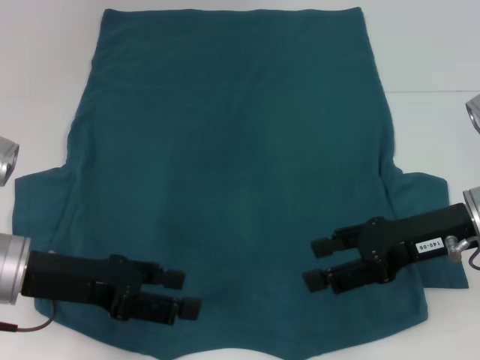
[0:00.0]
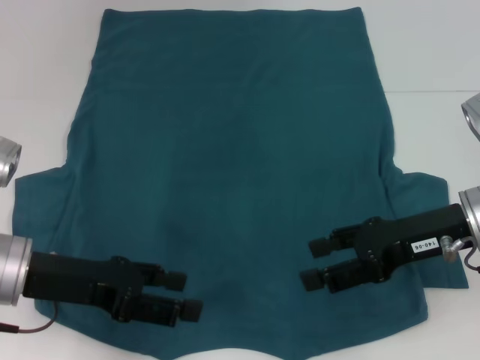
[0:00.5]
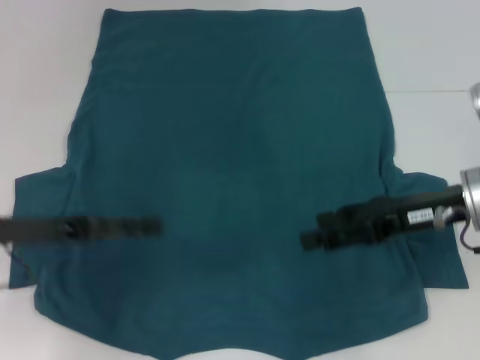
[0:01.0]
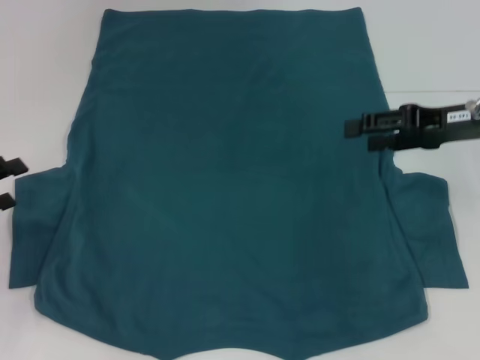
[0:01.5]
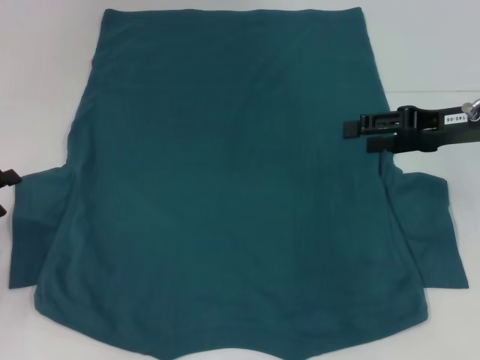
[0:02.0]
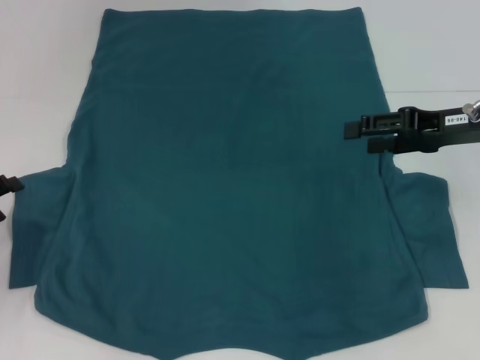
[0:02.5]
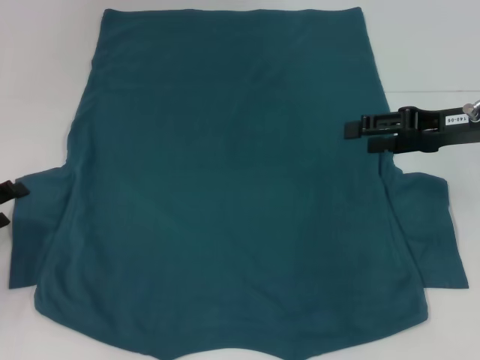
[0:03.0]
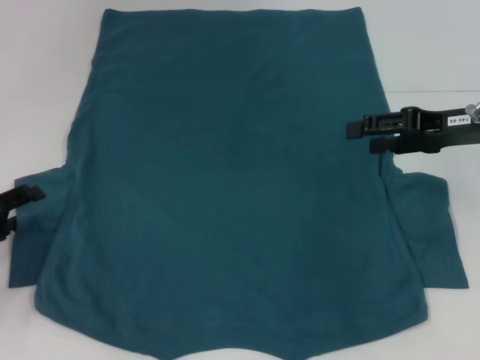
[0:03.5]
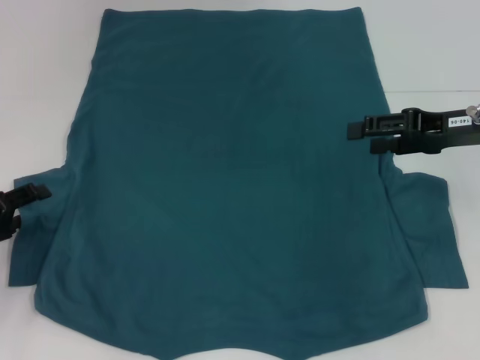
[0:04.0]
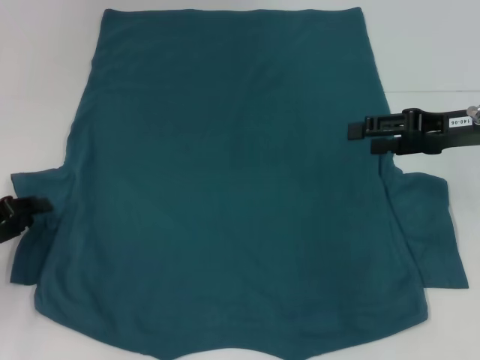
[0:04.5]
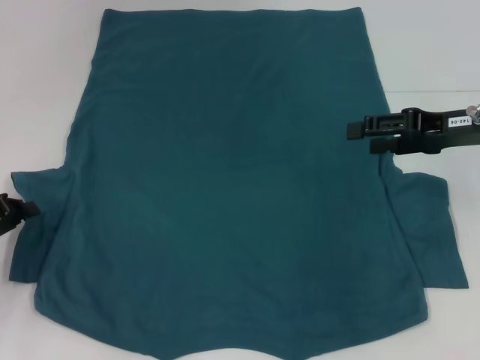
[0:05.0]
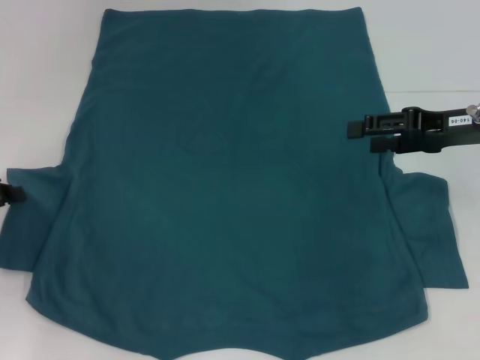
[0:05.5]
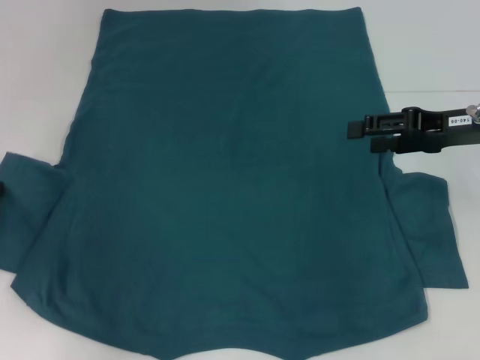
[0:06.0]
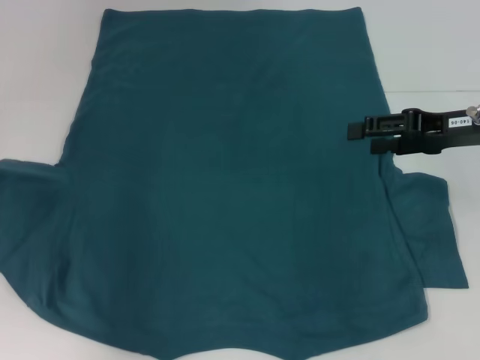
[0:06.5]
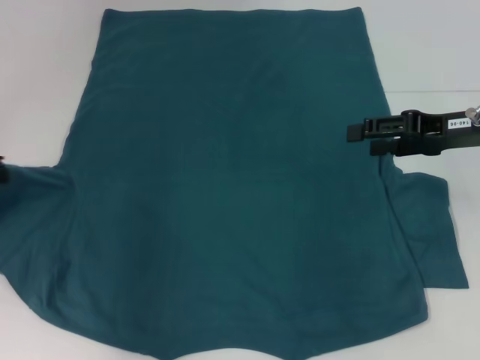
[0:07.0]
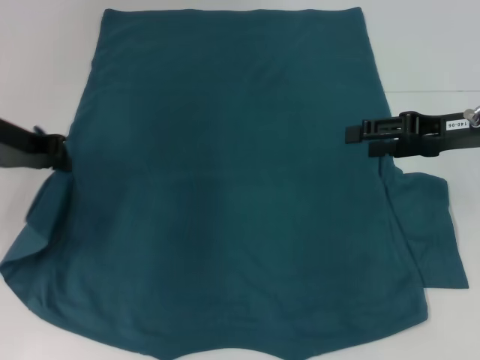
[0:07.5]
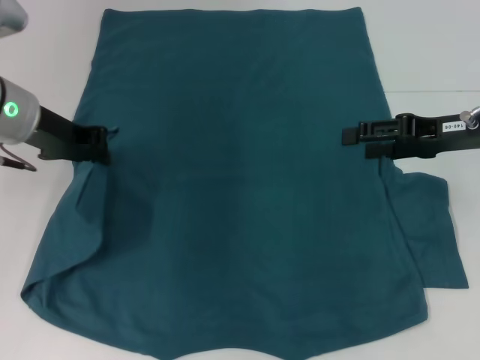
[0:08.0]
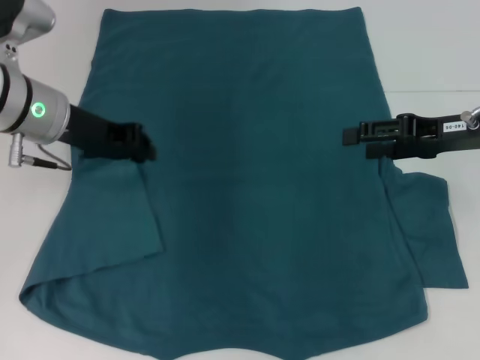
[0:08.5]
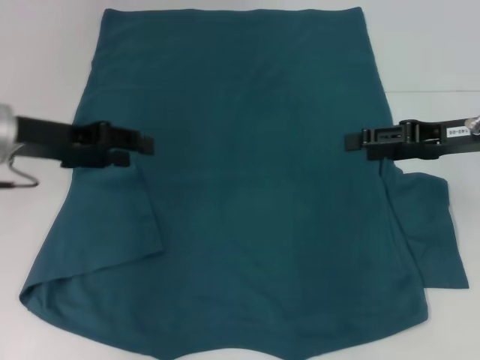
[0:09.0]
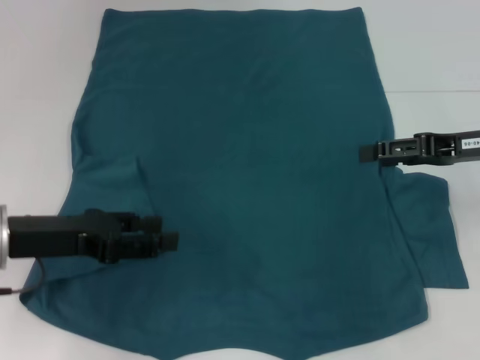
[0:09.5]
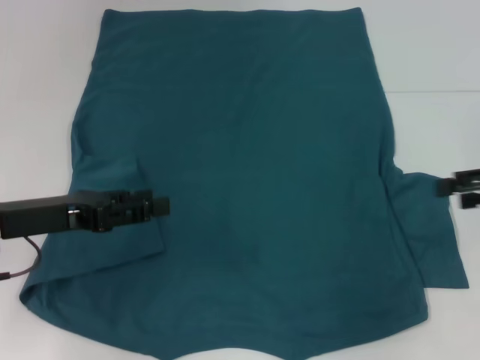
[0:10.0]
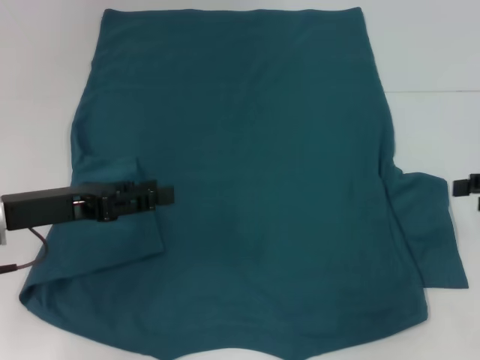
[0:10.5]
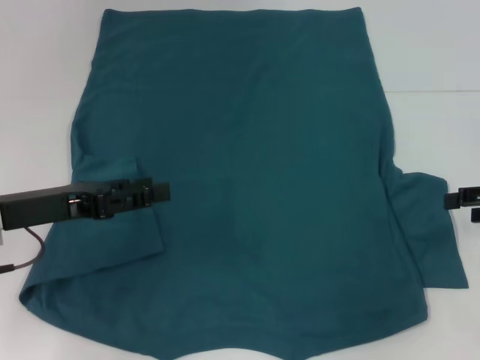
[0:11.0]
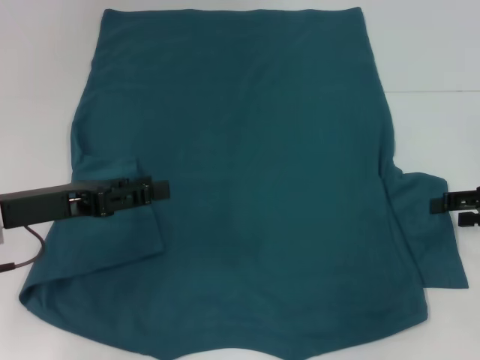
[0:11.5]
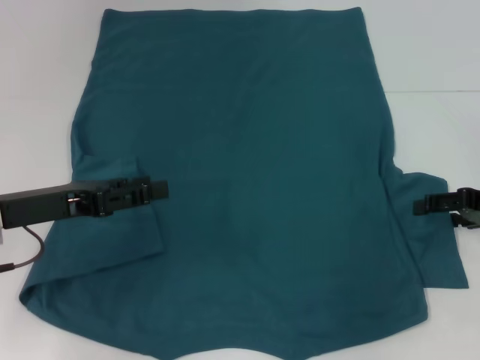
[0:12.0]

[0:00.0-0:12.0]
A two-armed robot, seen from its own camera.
Step, 0:00.0 to 0:08.5: Fold the bottom left sleeve with your left hand.
0:00.0 to 0:02.0: The left gripper is displaced to the left by approximately 15 cm. Meanwhile the right gripper goes some 10 cm forward.
0:02.0 to 0:04.0: The grippers move only a little.
0:04.0 to 0:06.0: The left gripper is displaced upward by about 5 cm, and closes.
0:06.0 to 0:08.0: The left gripper shifts approximately 15 cm to the right, forward and upward.
0:08.0 to 0:10.0: The left gripper heads backward and downward, covering some 10 cm, and opens its fingers, while the right gripper heads to the right, covering some 10 cm.
0:10.0 to 0:12.0: The right gripper shifts about 5 cm downward.

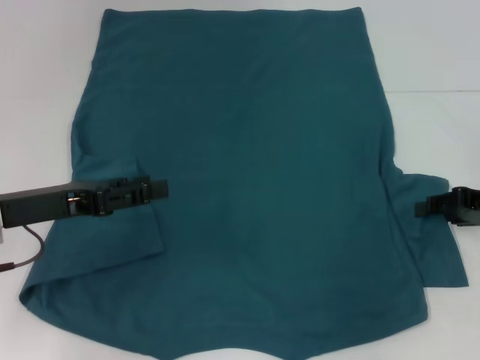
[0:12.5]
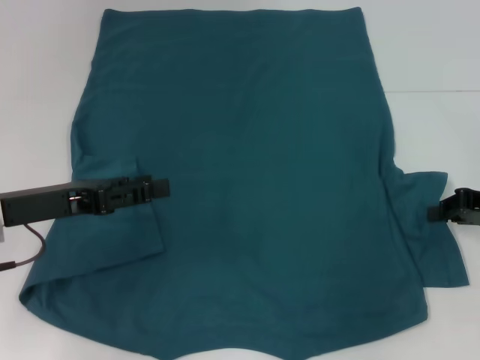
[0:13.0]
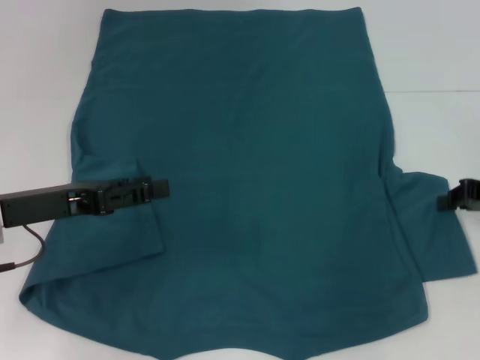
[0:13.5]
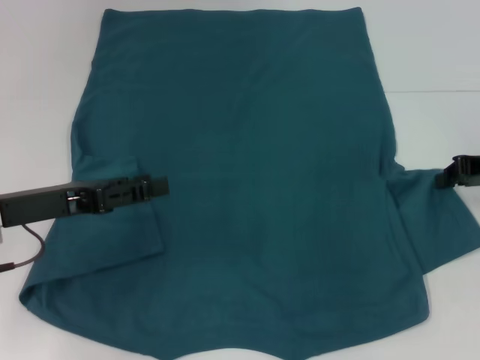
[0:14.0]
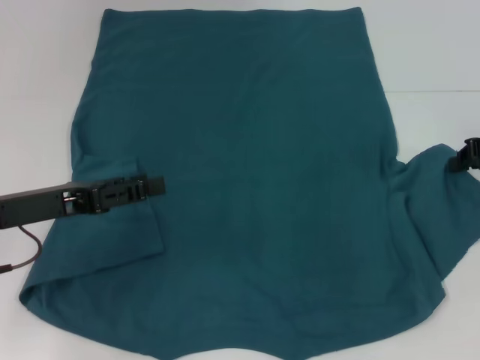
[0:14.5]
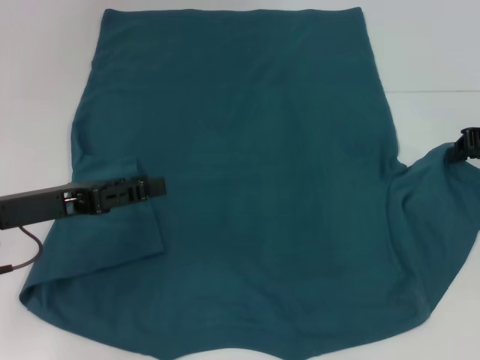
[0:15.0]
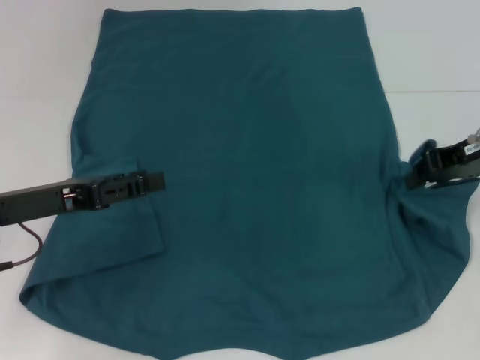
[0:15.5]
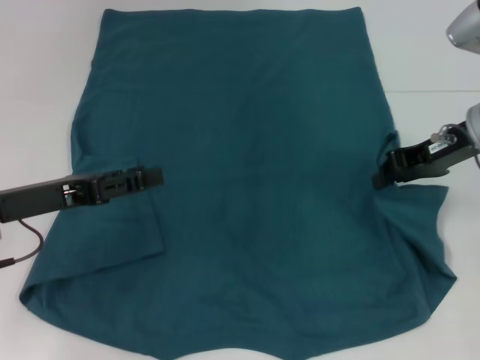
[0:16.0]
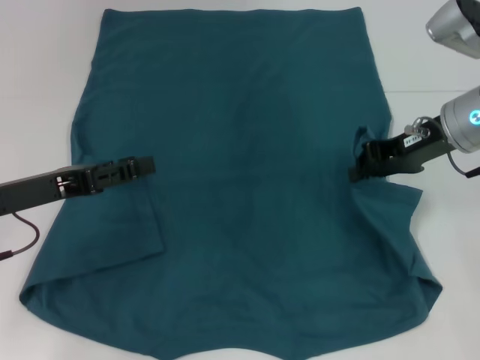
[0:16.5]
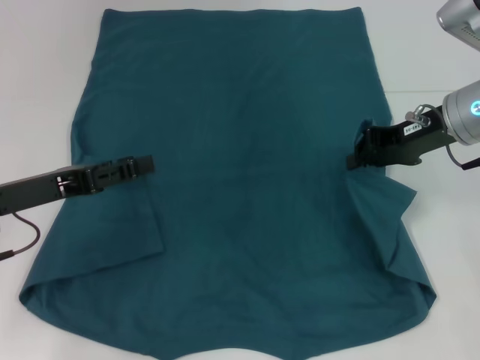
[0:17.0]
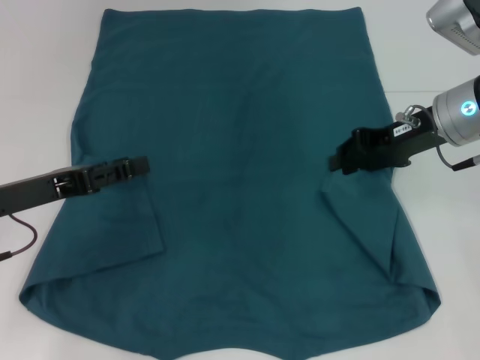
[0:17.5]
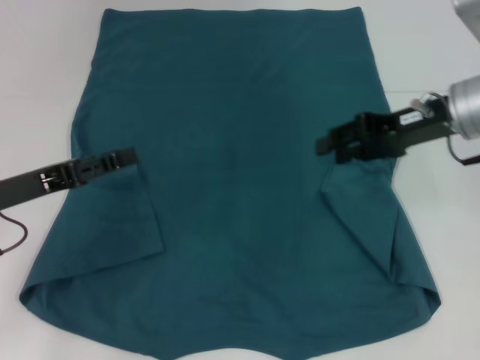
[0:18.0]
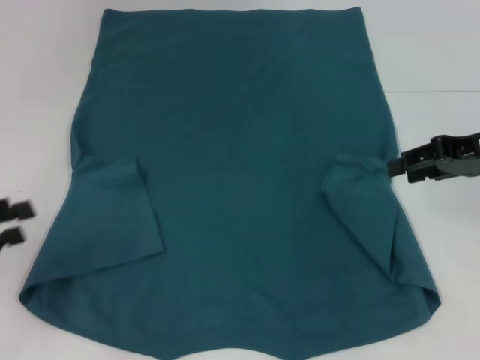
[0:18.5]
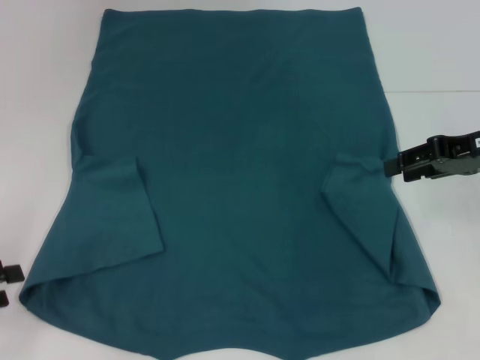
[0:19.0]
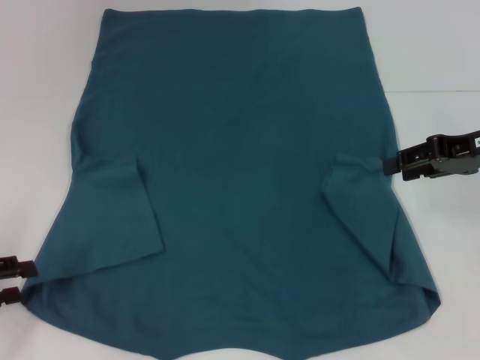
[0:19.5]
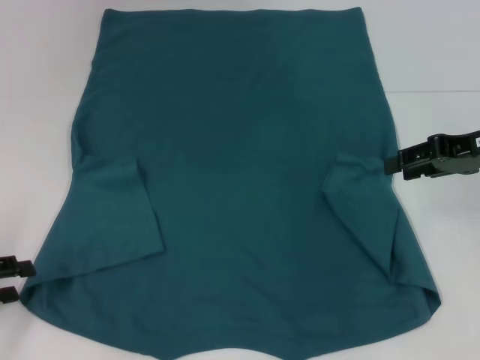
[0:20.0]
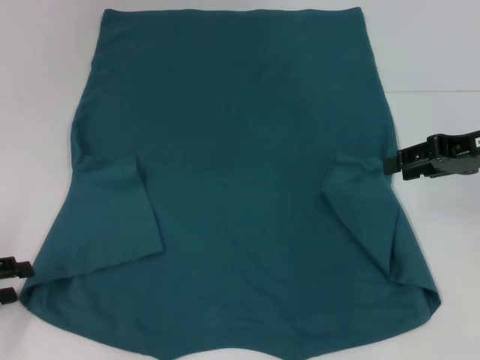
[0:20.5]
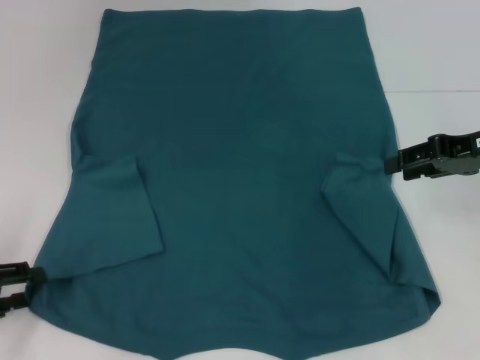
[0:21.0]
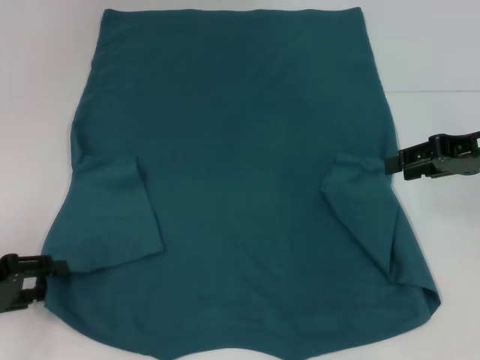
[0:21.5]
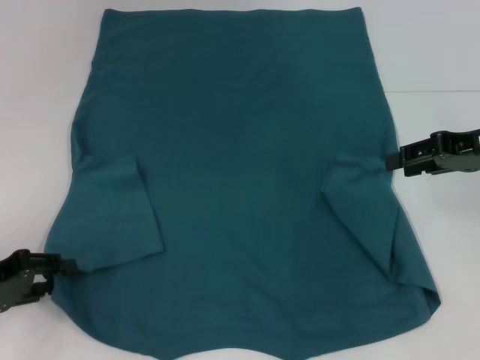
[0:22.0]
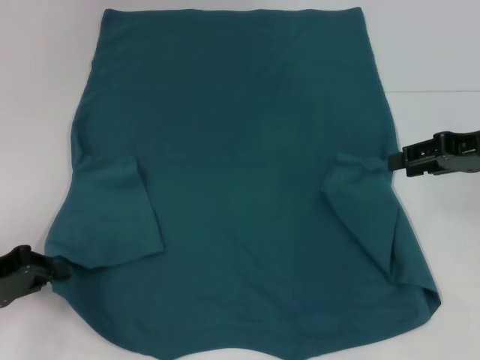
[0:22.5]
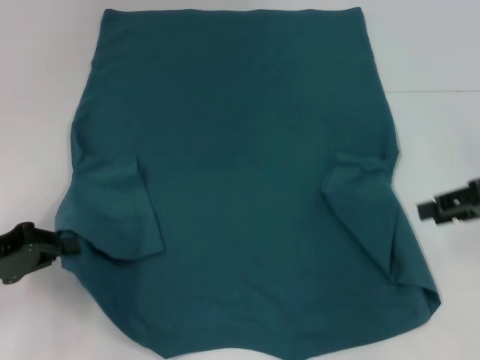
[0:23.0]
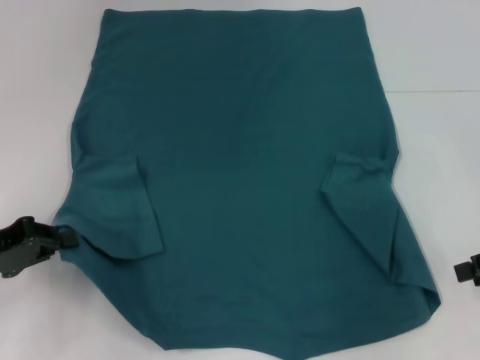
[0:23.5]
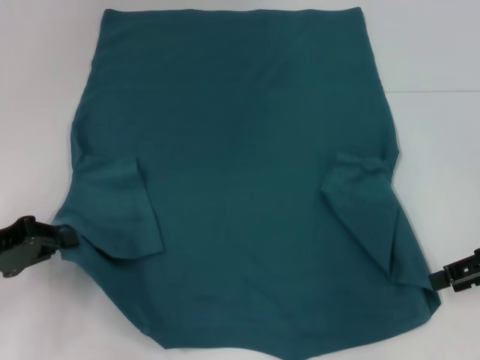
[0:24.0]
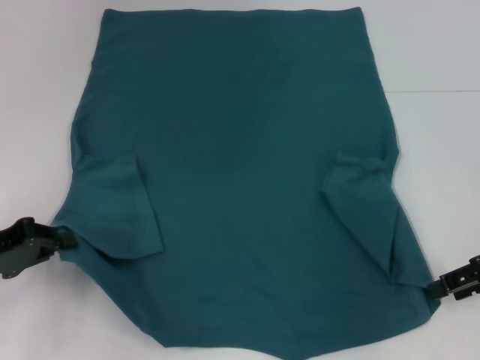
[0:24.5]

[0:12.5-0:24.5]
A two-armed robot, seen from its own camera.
Step, 0:12.5 to 0:17.5: Fold the bottom right sleeve to the right.
Step, 0:18.0 to 0:22.5: Grab the bottom left corner with your left hand.
0:12.5 to 0:14.5: The right gripper travels upward by about 5 cm, and closes its fingers.
0:14.5 to 0:16.5: The right gripper shifts about 10 cm to the left.
0:16.5 to 0:18.5: The right gripper travels to the right by about 5 cm, and opens up, while the left gripper travels to the left and backward by roughly 10 cm.
0:18.5 to 0:20.5: There are only small adjustments of the grippers.
0:20.5 to 0:22.5: The left gripper closes up.
0:22.5 to 0:24.5: The right gripper is displaced backward by some 5 cm.

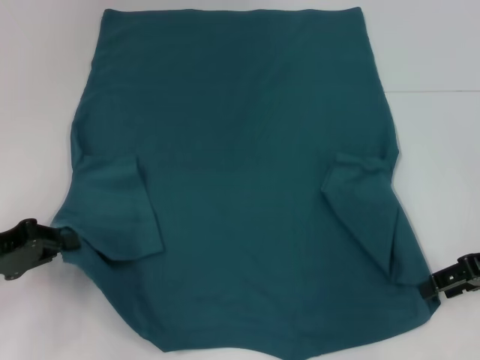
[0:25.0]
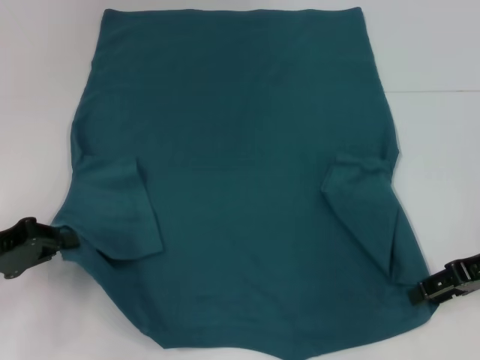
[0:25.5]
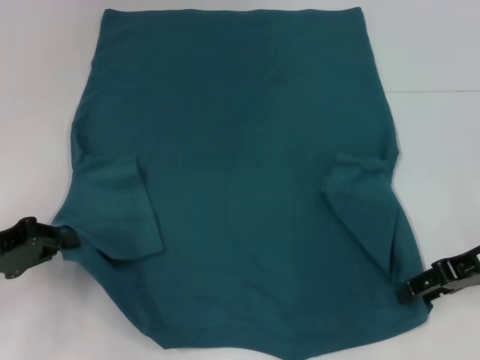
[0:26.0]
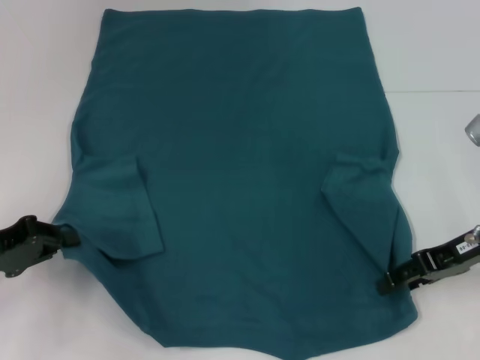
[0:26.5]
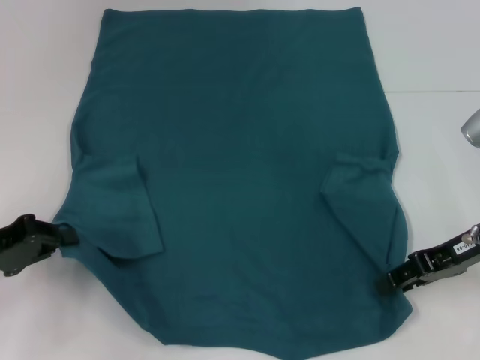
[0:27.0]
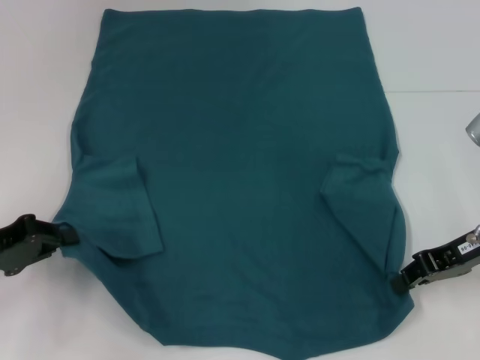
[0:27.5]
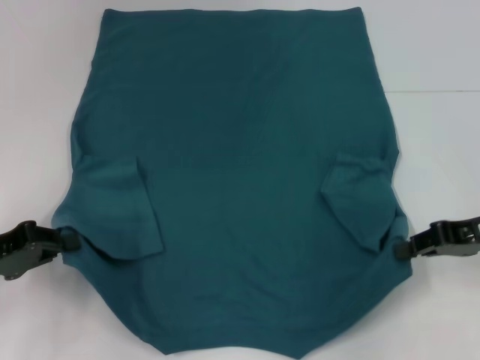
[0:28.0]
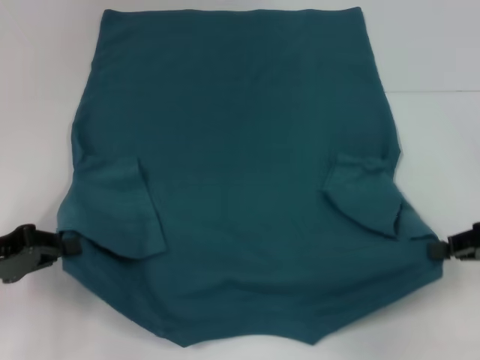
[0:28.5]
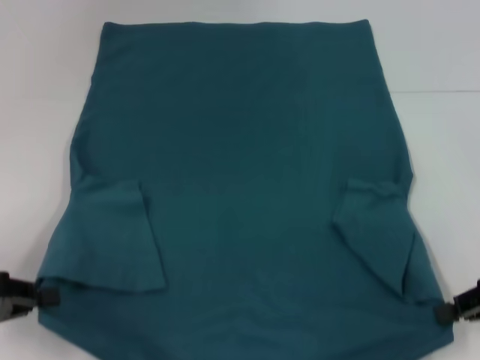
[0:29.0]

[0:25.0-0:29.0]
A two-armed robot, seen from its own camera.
Step, 0:25.0 to 0:28.0: Grab the bottom right corner with your right hand.
0:25.0 to 0:27.0: The right gripper ends up some 5 cm from where it was.
0:27.0 to 0:29.0: The right gripper travels to the right and backward by about 10 cm, and closes its fingers; the left gripper shifts by about 5 cm.
